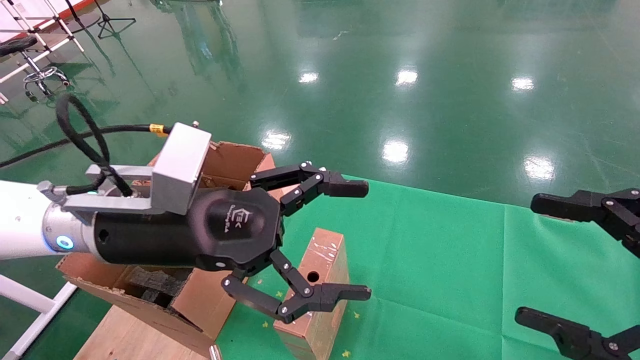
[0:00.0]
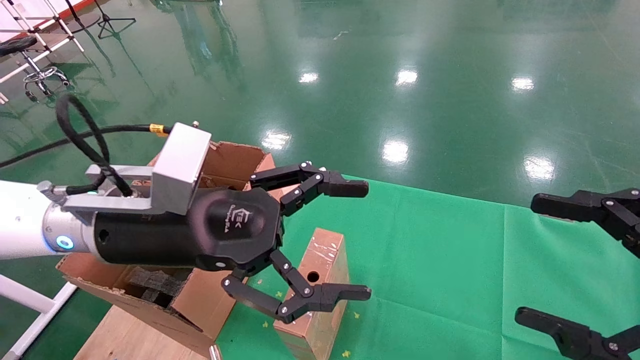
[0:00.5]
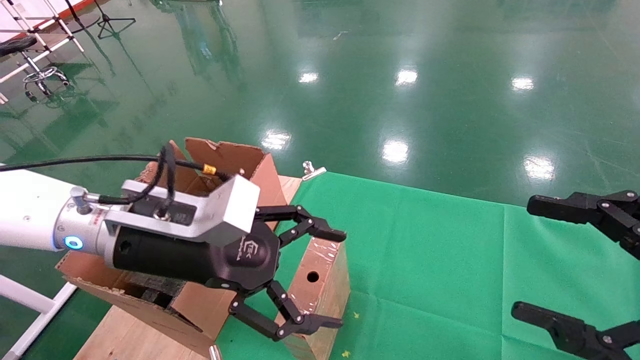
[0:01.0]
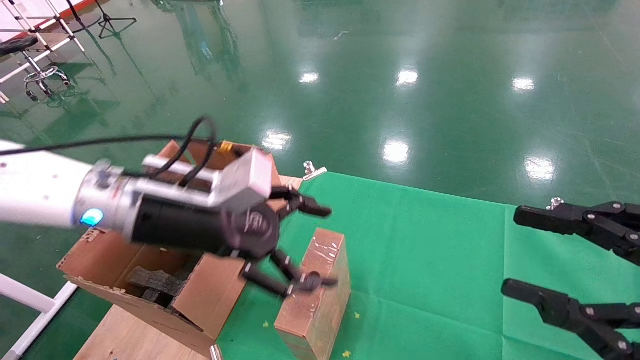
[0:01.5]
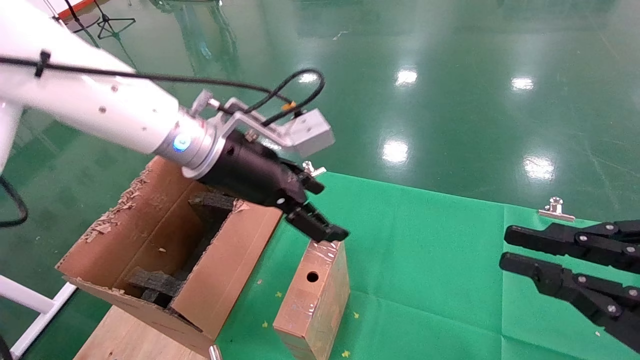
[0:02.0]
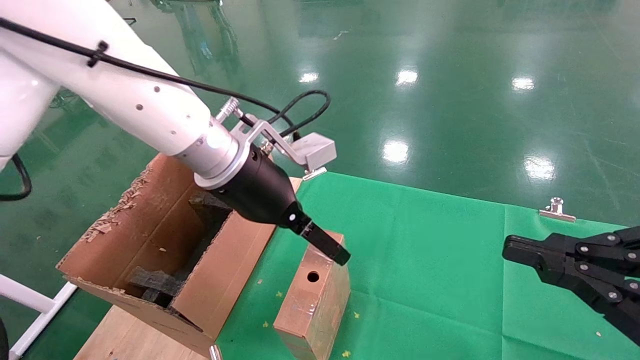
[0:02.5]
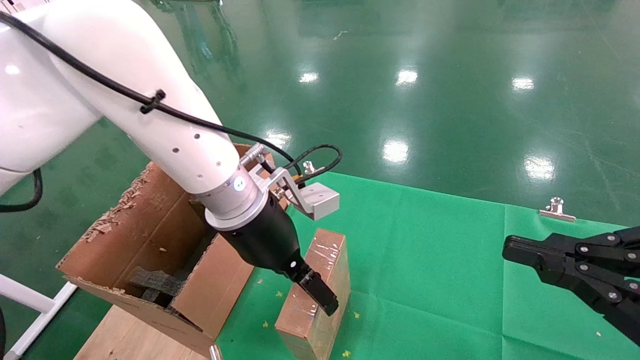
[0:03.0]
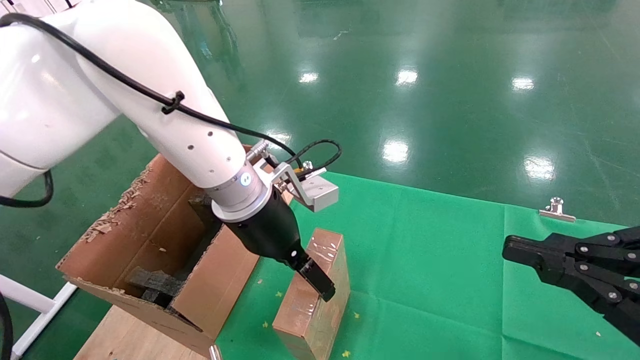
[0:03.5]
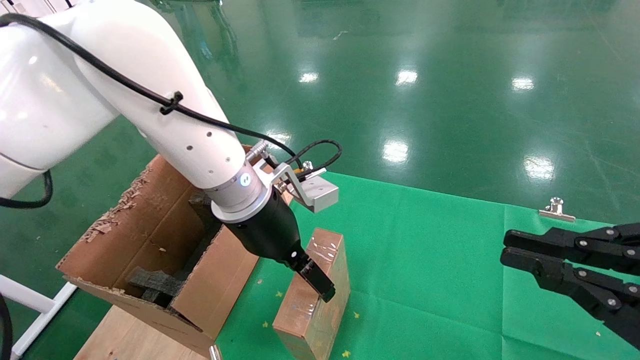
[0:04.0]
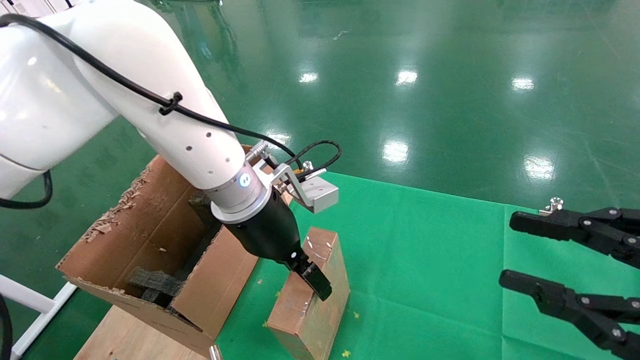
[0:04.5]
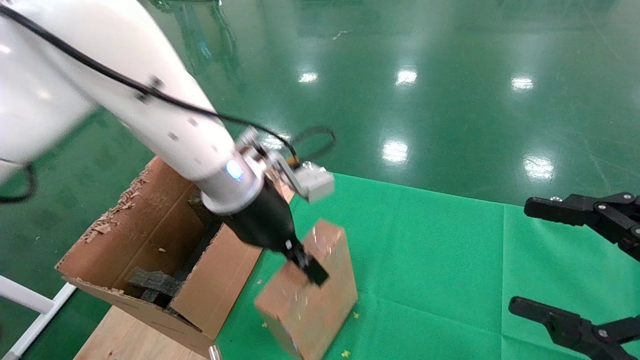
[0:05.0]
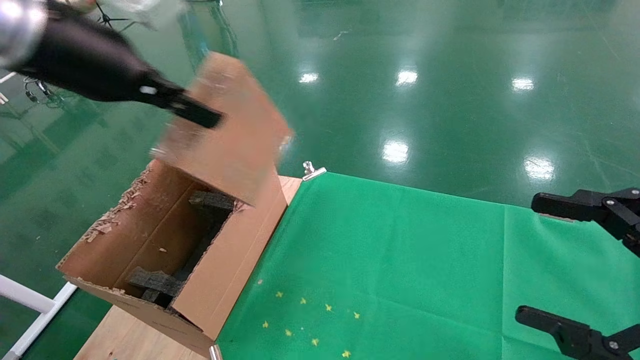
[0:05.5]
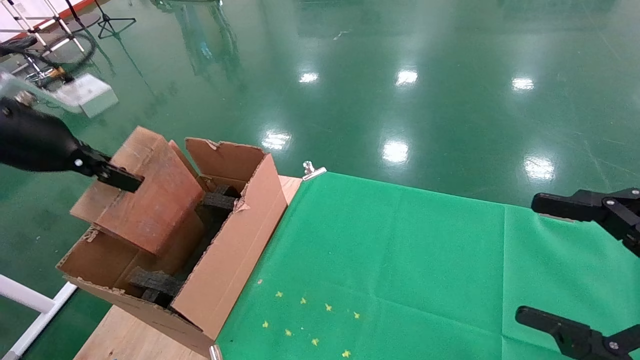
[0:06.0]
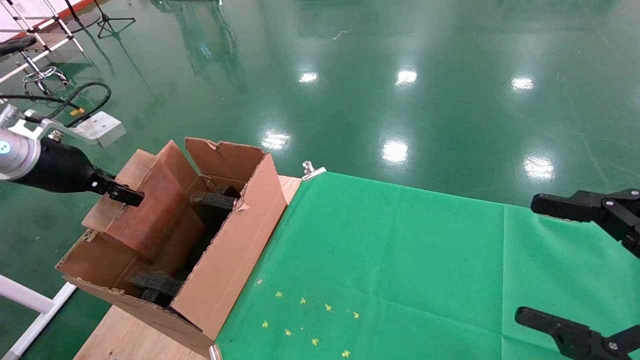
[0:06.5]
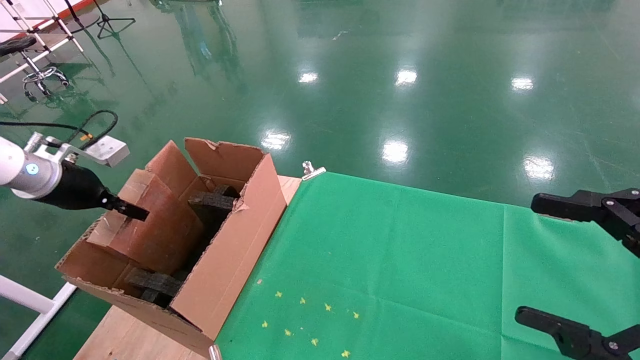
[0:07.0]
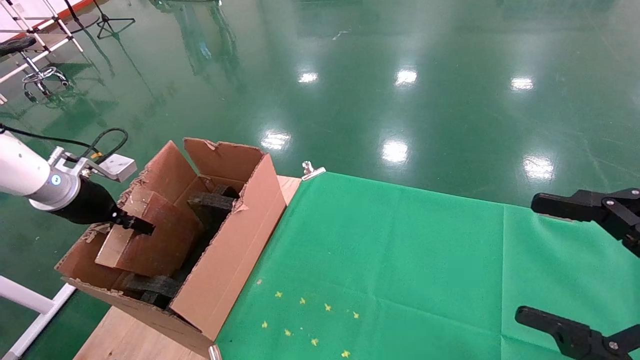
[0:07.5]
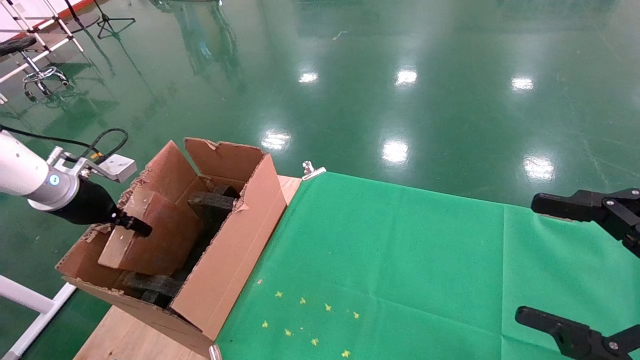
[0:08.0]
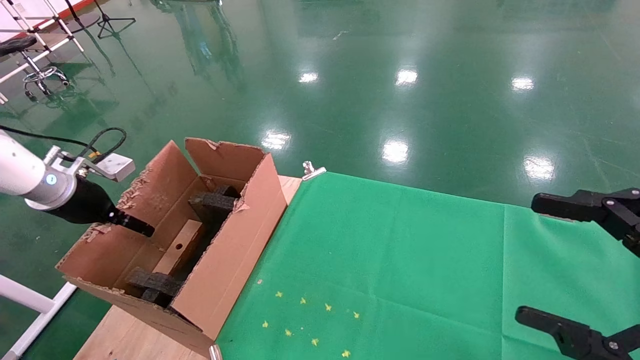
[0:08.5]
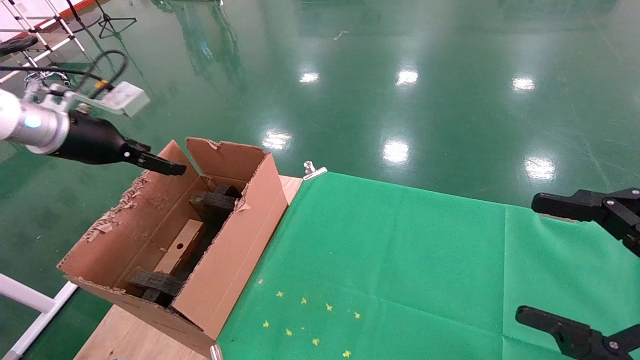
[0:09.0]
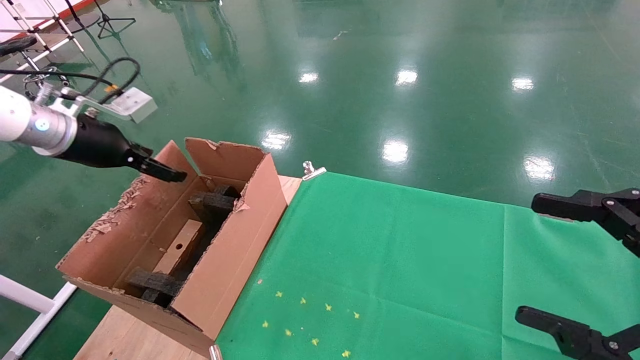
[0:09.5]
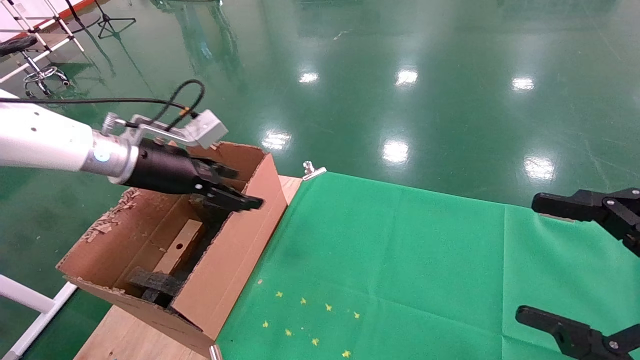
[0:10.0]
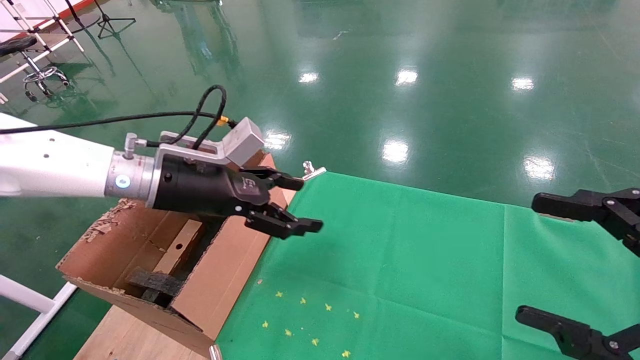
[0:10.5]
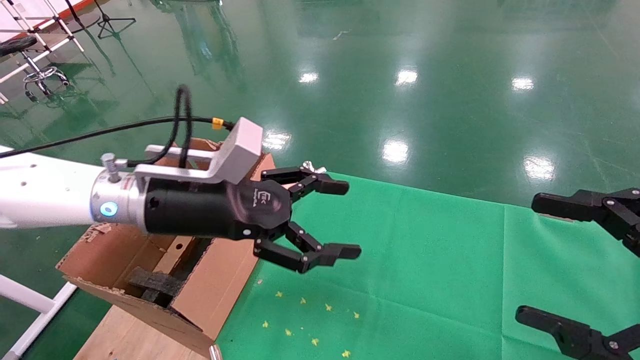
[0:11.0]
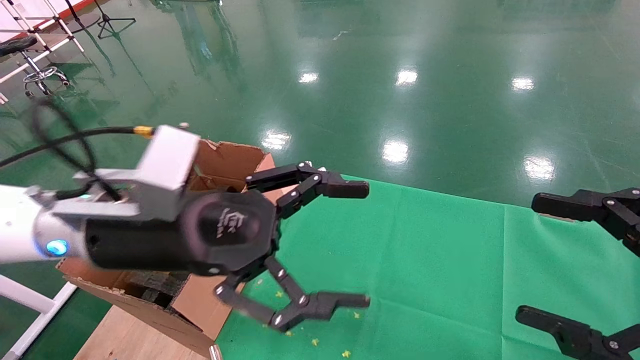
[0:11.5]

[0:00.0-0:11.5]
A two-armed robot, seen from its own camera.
Task of the whole recording: using a robotic arm to pick up a cardboard box and palace it the carton.
Step, 0:01.0 to 0:04.5: Pick up the mouse and the power cord paper box.
Step, 0:05.0 to 0:09.0: Place the mouse and the power cord paper box into the container.
0:00.0 to 0:02.0: The right gripper closes up. Meanwhile the left gripper shifts approximately 10 cm forward.
0:02.0 to 0:04.0: The left gripper shifts by approximately 5 cm.
0:04.0 to 0:06.0: The left gripper goes about 25 cm to the left, and closes up, while the right gripper opens up.
0:06.0 to 0:07.5: The left gripper travels downward, to the left and forward by some 20 cm.
0:07.5 to 0:09.5: The left gripper moves upward and to the right, some 10 cm, and opens up.
0:09.5 to 0:11.5: The left gripper goes some 25 cm to the right and backward.

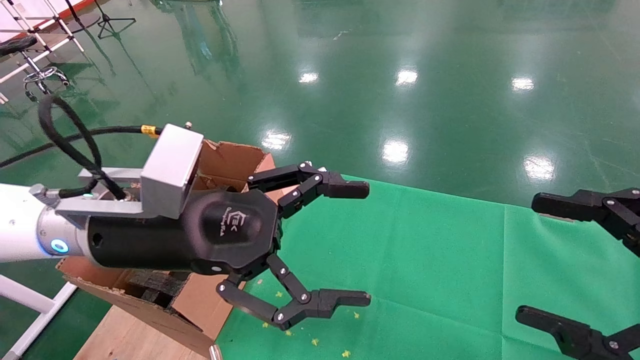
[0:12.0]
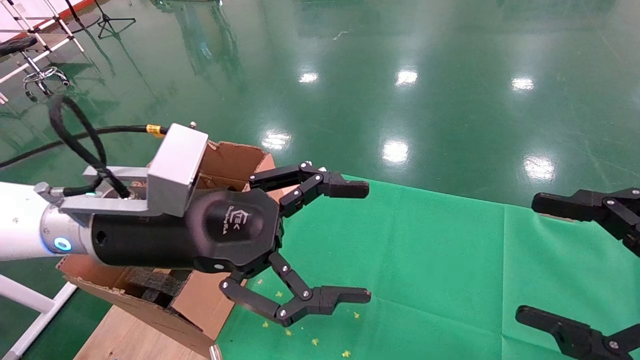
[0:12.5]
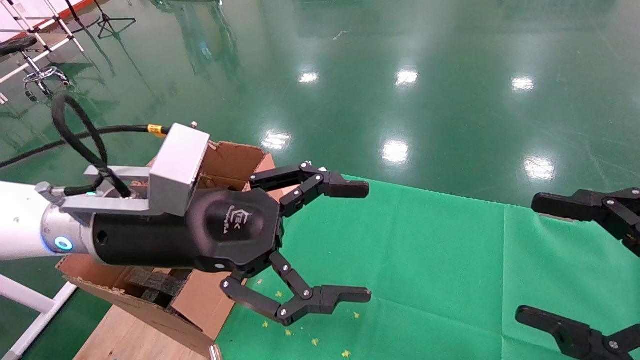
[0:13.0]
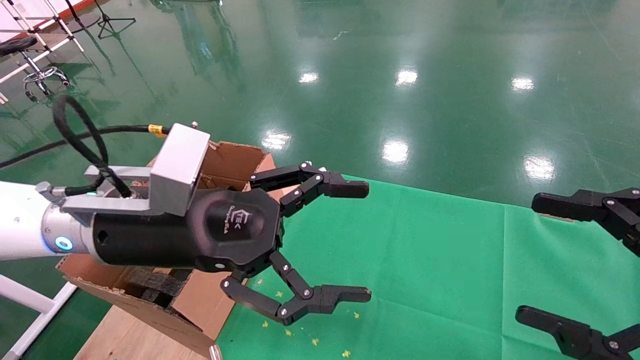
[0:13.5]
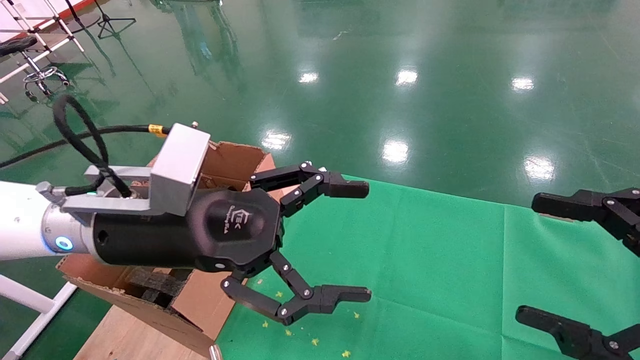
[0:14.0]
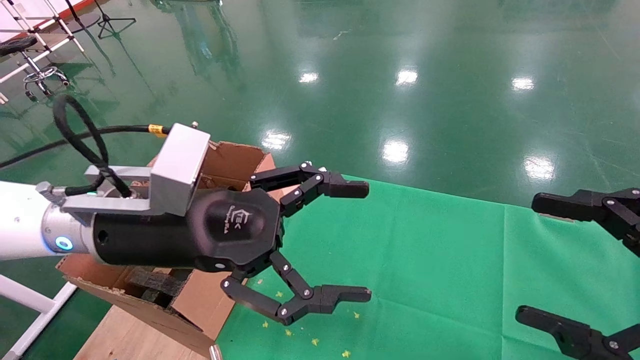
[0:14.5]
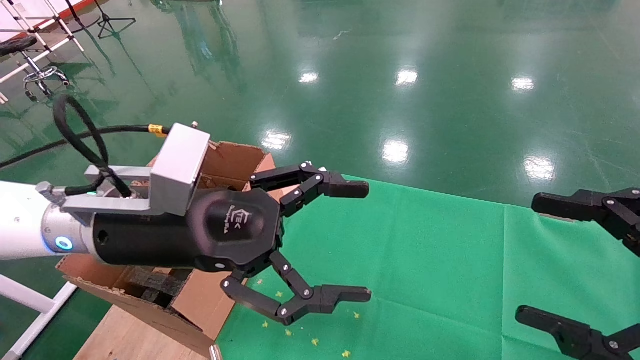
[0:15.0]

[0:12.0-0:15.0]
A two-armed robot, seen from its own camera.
Task of the whole recording: using a robotic arm to pick up a cardboard box and palace it the carton.
0:12.0 to 0:15.0: The two grippers keep their place.
